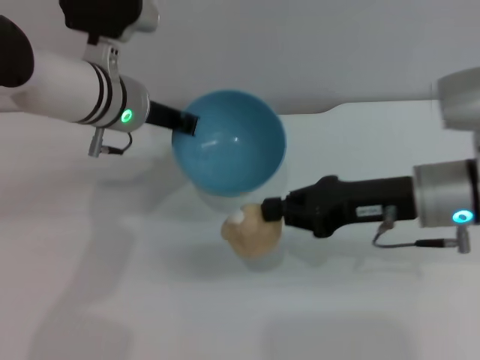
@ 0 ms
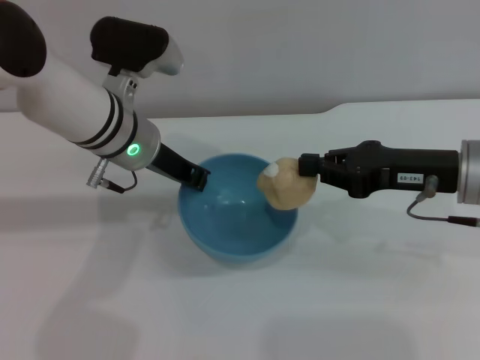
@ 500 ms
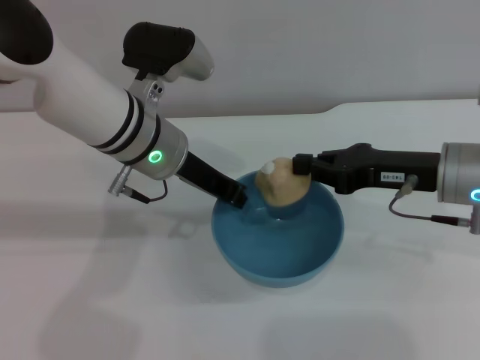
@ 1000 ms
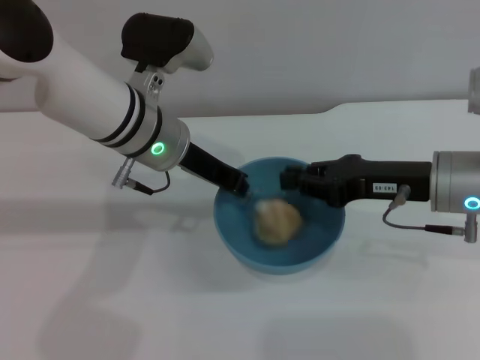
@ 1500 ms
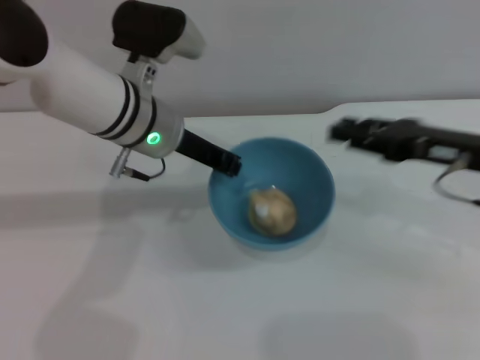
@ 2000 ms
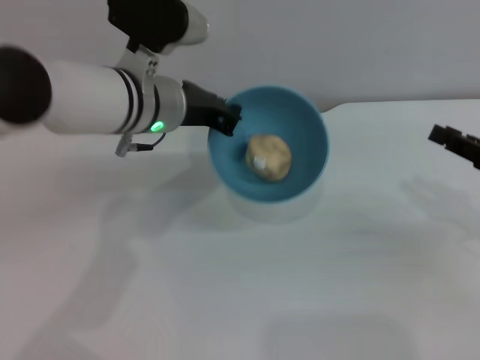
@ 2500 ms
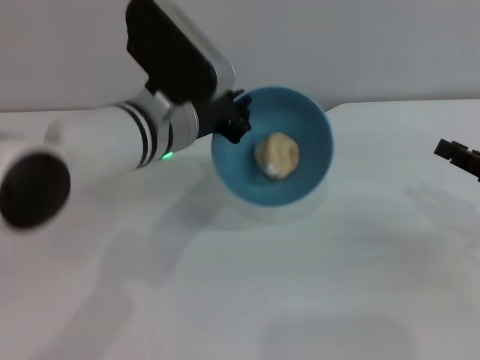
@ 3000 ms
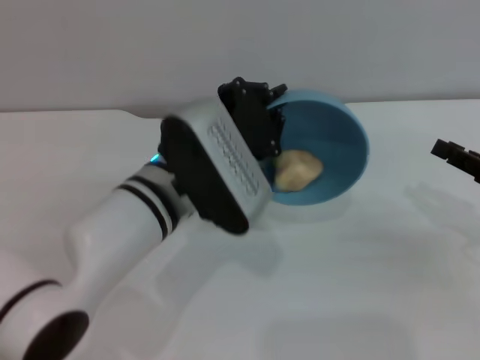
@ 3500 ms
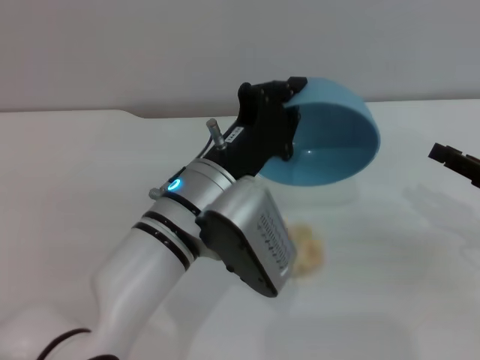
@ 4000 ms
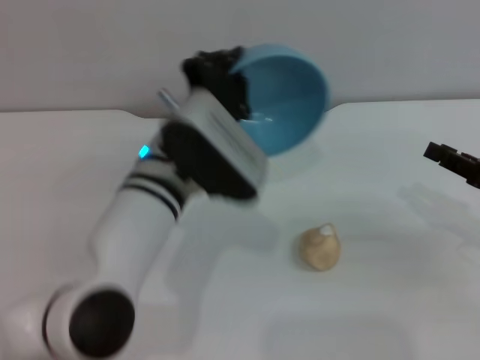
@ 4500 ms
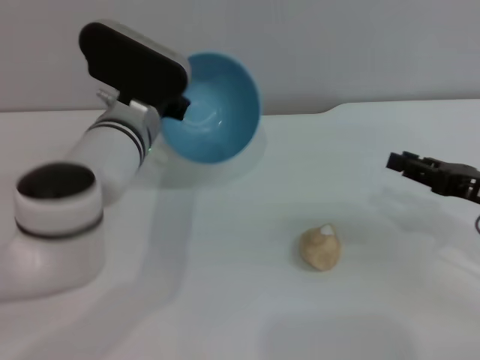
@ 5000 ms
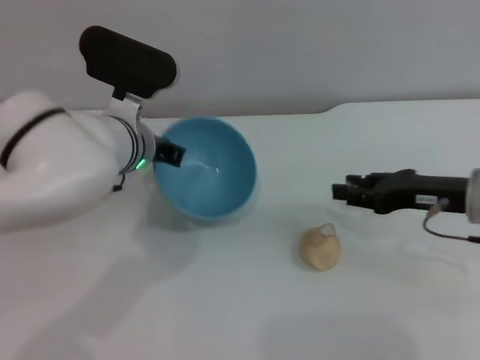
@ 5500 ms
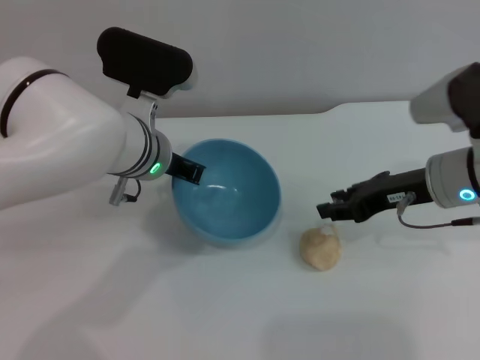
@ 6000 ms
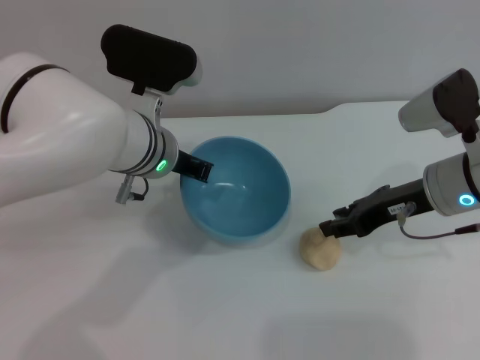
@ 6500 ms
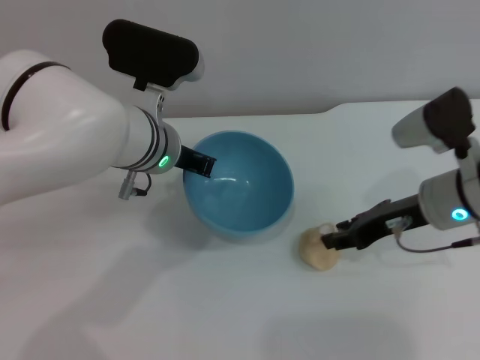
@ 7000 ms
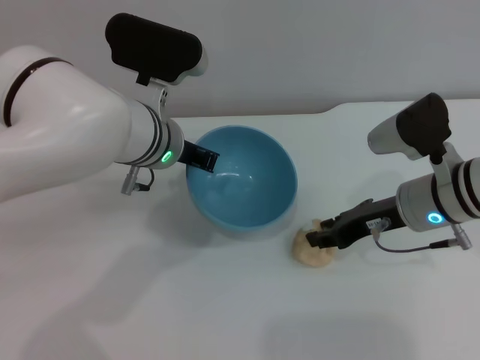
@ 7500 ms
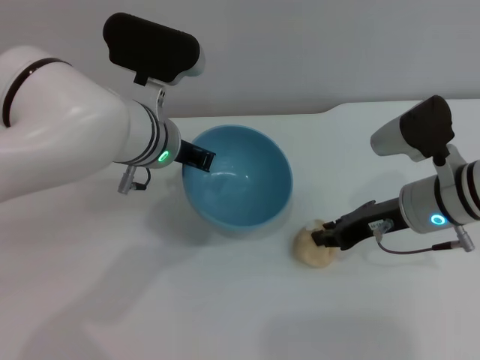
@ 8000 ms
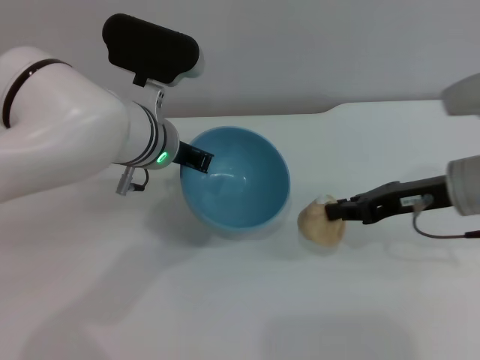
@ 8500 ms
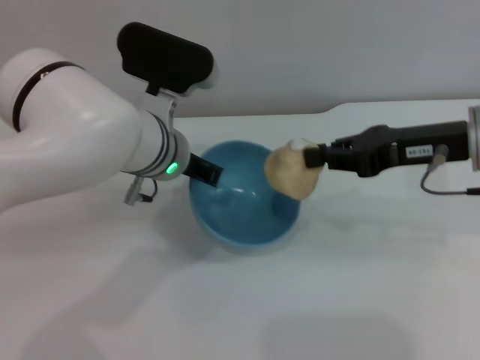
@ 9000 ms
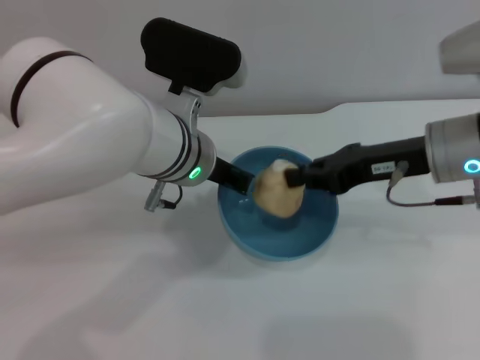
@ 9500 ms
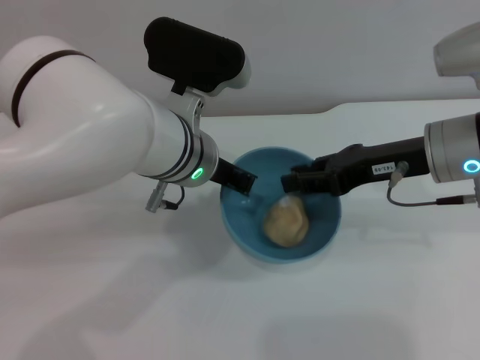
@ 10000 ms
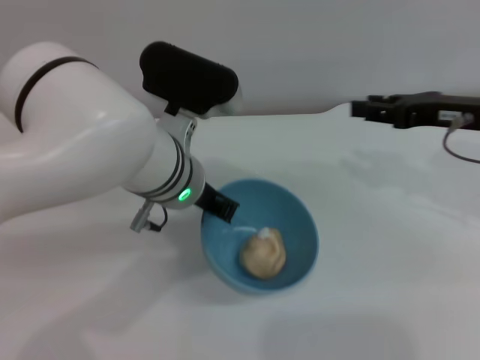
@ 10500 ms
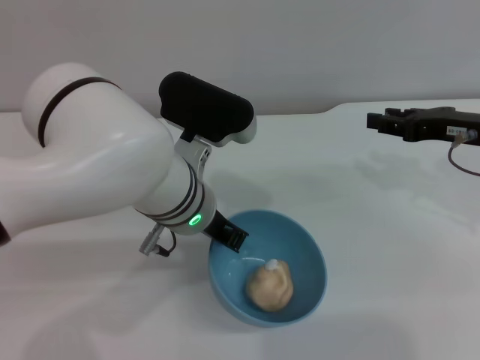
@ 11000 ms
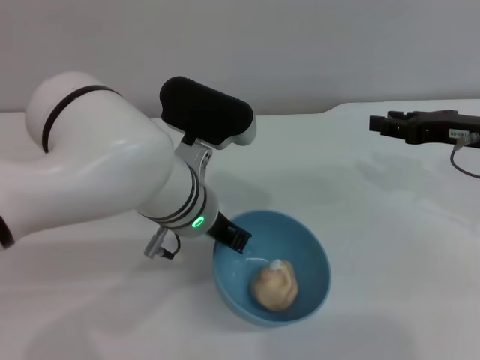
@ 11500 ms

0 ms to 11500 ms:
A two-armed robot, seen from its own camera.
Task of the whole recording: put the egg yolk pastry into the blue bowl and pour it out repeatedly.
Step, 500 ms to 2000 ms: Place the egg yolk pastry into the bowl.
Step, 2500 ms to 4500 ms: Pour the egg yolk pastry out of bowl.
Step, 5000 ms to 8500 ms: Pick up the egg yolk pastry with the right gripper.
Step, 9000 ms to 10000 ms: Place the egg yolk pastry into the bowl.
0 ms to 2000 ms: The right gripper travels to the right by about 5 cm, and opens up.
2000 ms to 4000 ms: The left gripper goes roughly 15 cm backward and to the right, while the right gripper goes about 10 cm to the right, downward and backward.
4000 ms to 6000 ms: The right gripper heads to the left and forward, covering about 15 cm. The left gripper is displaced forward by approximately 10 cm.
6000 ms to 7500 ms: There are only small adjustments of the grippers.
7500 ms to 9500 ms: The right gripper shifts roughly 5 cm upward, and closes up.
9500 ms to 11500 ms: The right gripper goes some 10 cm to the right, and opens.

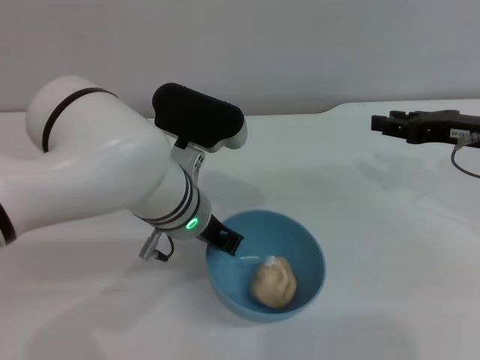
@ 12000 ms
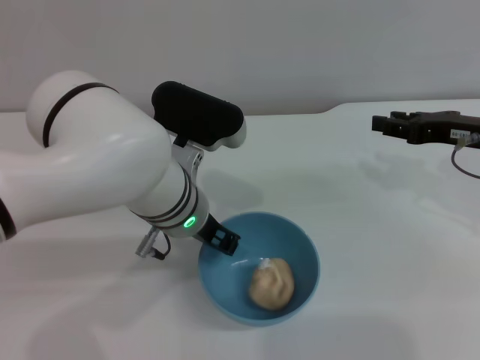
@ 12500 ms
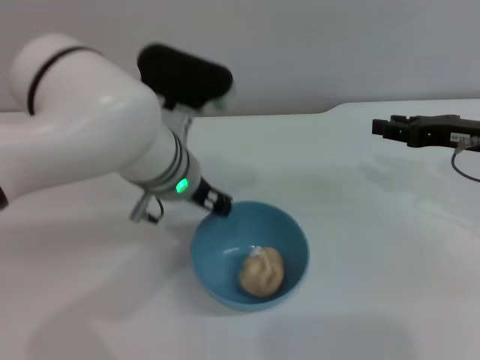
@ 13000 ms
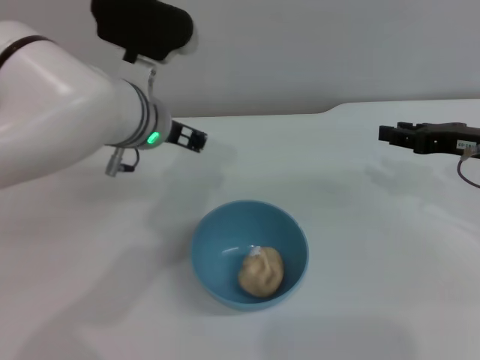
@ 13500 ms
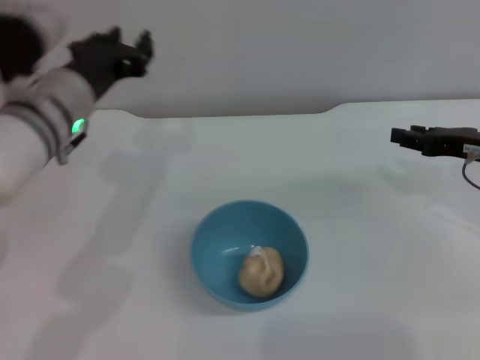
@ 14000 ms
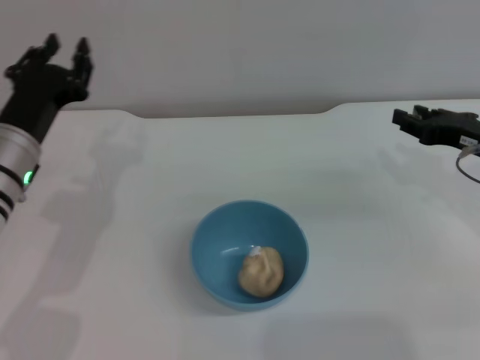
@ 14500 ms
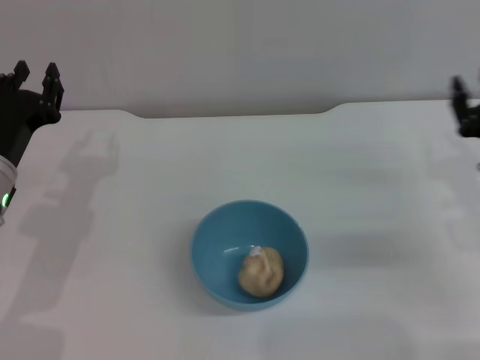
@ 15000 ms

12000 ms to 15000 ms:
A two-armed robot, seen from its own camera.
Task of the whole recording: put the egg yolk pastry into the blue bowl and pour it out repeatedly.
12000 ms to 13500 ms: The left gripper travels forward by roughly 5 cm, and opens up.
13500 ms to 15000 ms: The right gripper goes approximately 5 cm downward. Meanwhile the left gripper travels to the left and downward by roughly 20 cm.
